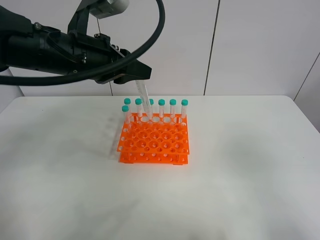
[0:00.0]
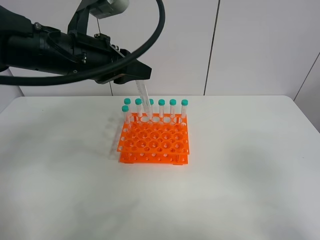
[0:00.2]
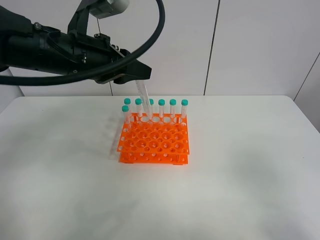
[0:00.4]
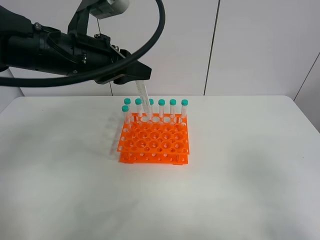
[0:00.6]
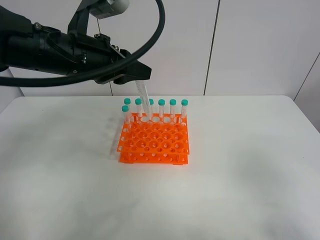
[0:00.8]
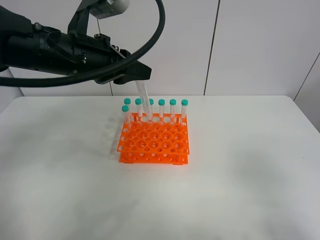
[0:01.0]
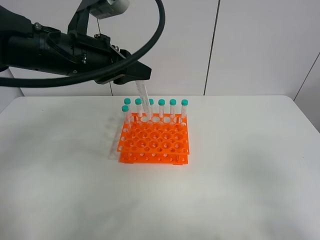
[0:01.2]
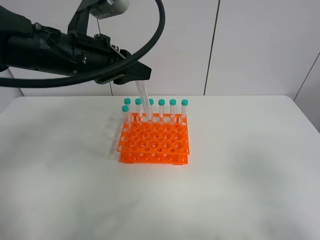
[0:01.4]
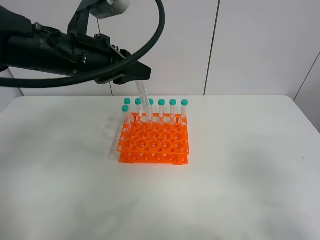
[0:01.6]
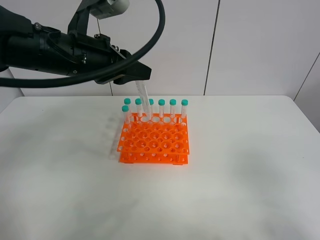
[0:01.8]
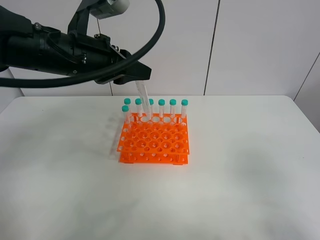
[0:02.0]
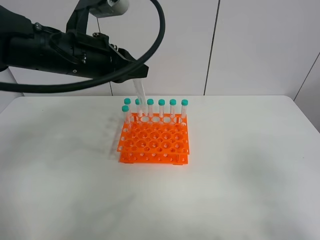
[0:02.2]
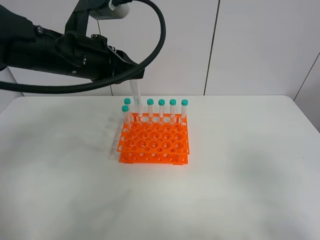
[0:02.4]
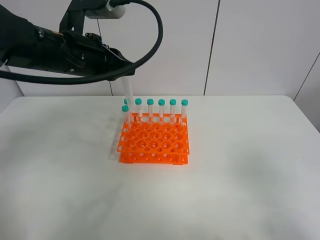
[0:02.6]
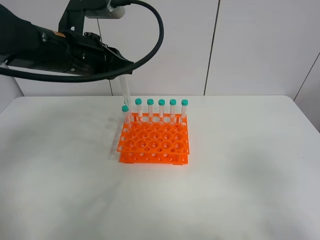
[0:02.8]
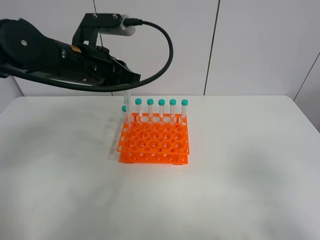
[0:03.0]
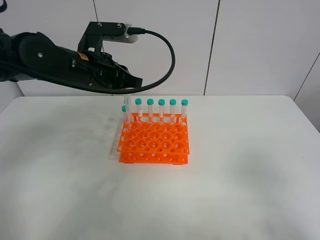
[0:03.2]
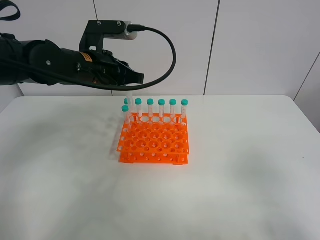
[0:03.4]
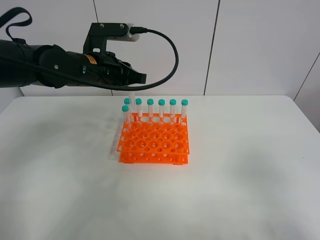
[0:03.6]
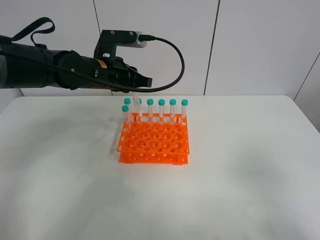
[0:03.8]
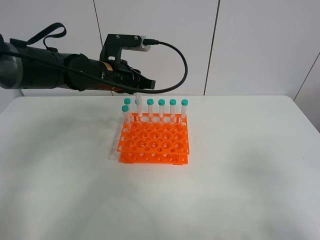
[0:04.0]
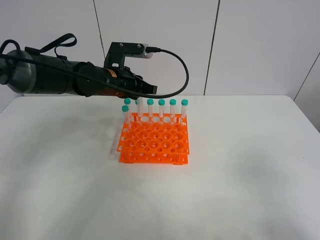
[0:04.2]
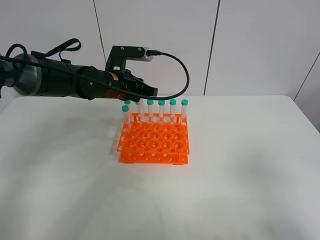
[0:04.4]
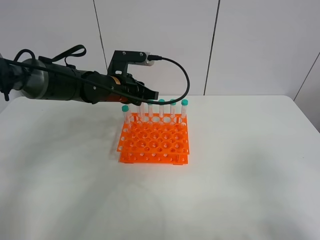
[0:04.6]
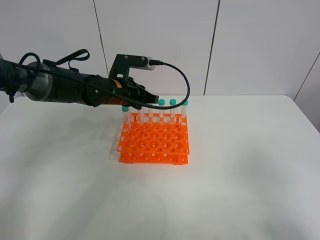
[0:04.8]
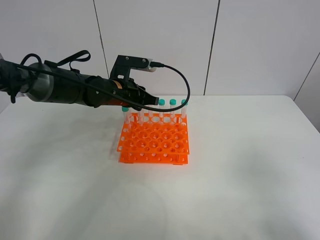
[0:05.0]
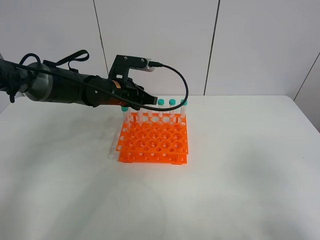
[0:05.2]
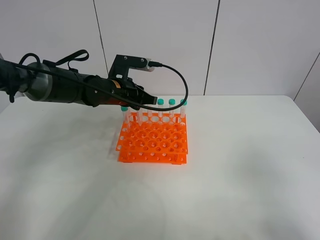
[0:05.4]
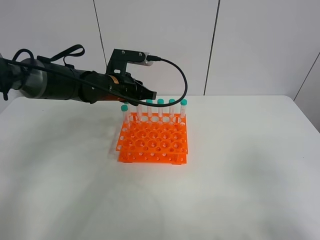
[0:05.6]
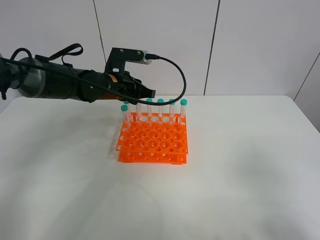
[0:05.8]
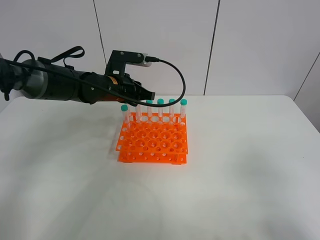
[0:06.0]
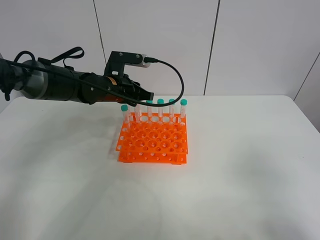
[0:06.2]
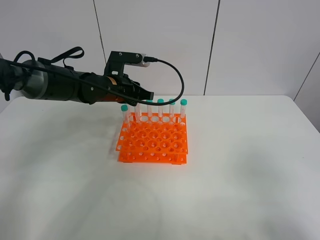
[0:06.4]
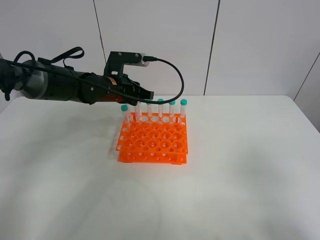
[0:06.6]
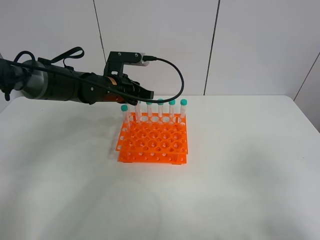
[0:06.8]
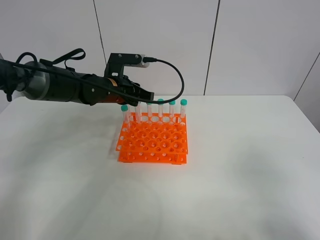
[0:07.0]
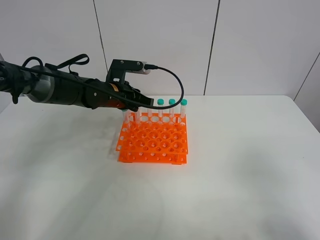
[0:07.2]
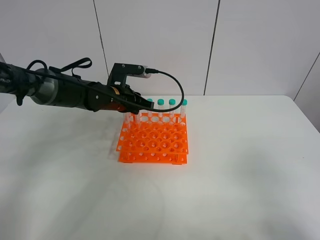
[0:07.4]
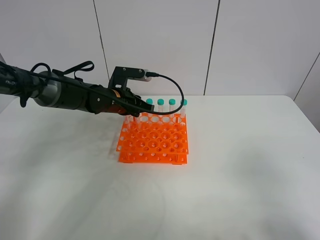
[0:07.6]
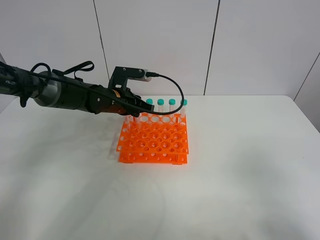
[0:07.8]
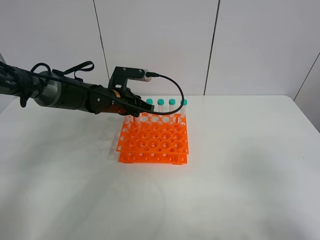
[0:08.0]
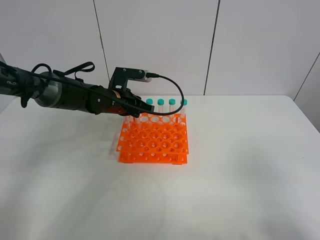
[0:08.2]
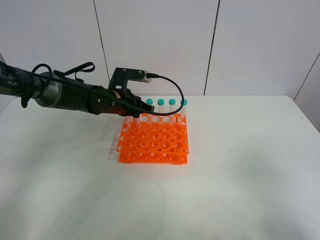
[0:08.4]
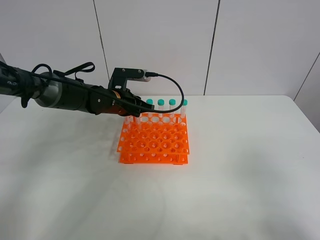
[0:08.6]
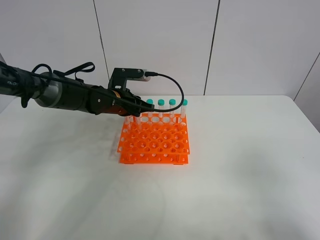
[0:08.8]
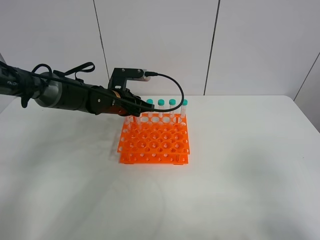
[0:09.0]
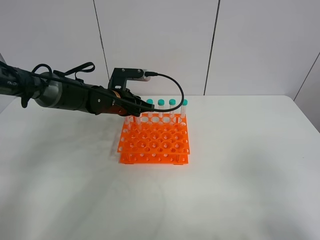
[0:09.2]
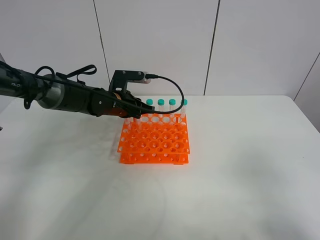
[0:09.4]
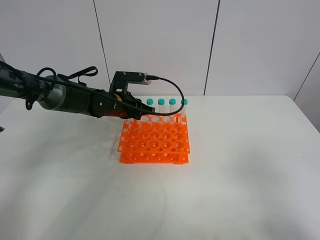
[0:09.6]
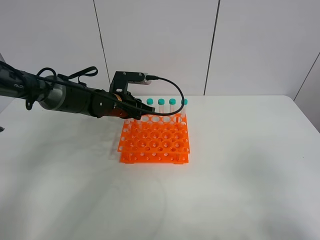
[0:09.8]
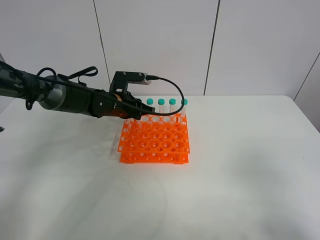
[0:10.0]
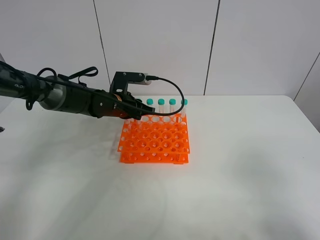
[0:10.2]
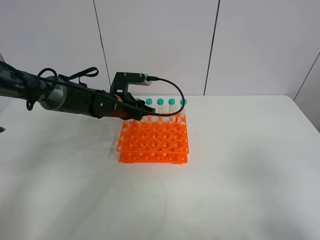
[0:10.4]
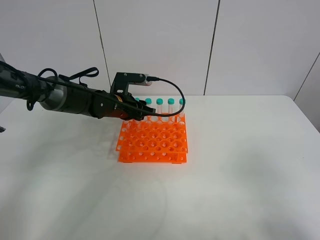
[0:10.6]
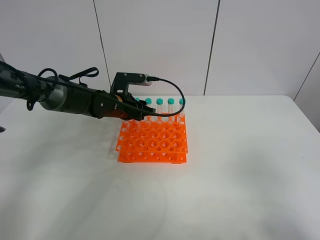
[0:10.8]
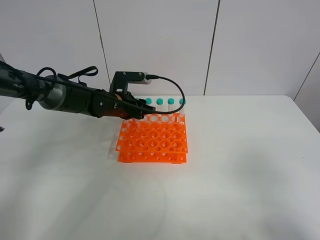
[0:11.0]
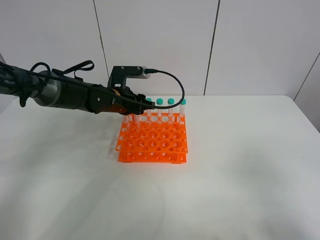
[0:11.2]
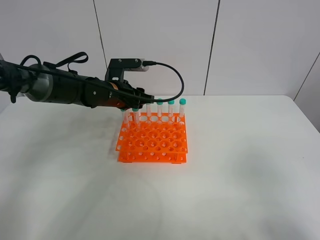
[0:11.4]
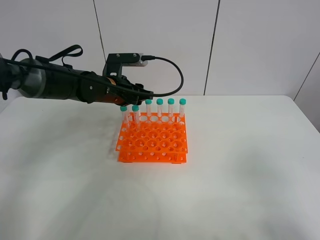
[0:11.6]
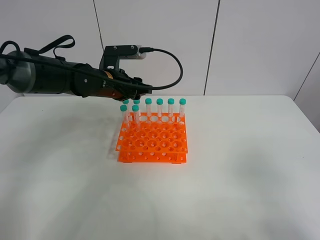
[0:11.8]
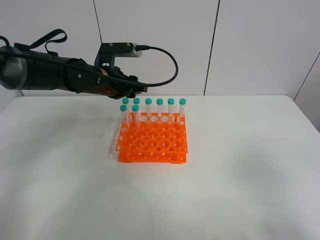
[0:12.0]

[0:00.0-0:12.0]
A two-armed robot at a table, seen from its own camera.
Task of the whole recording: Put the test tube on the table back onto the test tube rack.
Step, 0:00.0 to 0:10.6: Place the test tube on the test tube rack with the left gripper.
0:01.6 to 0:03.0: There are only small adjustments of the grippers.
0:03.0 to 0:04.4: The left gripper shifts approximately 10 cm downward and forward.
0:04.4 to 0:07.6: The grippers move only a little.
0:07.6 to 0:09.0: The two grippers keep their place.
0:09.0 to 0:10.4: The left gripper opens its fingers.
0:10.4 to 0:12.0: The left gripper heads upward, covering some 10 cm.

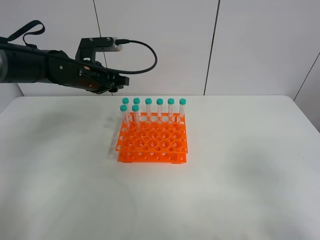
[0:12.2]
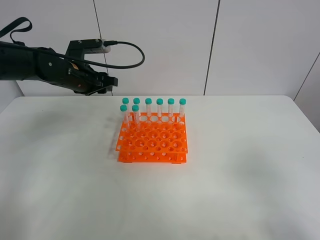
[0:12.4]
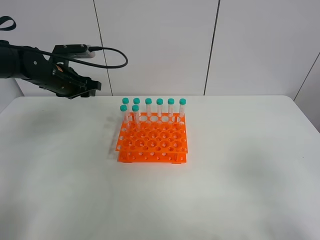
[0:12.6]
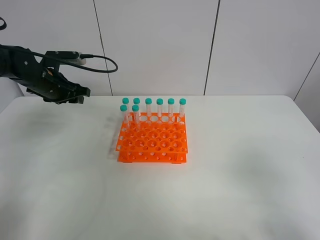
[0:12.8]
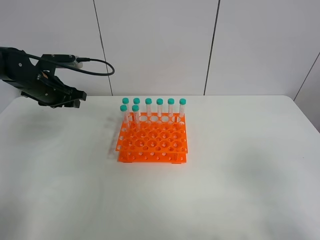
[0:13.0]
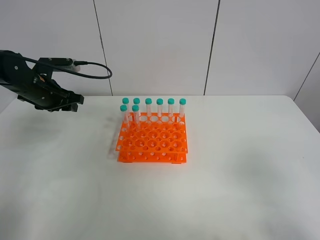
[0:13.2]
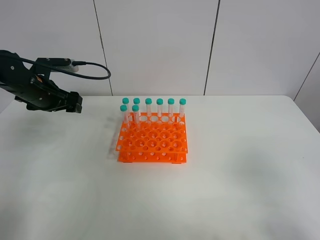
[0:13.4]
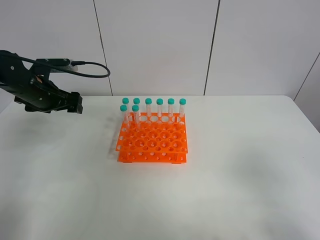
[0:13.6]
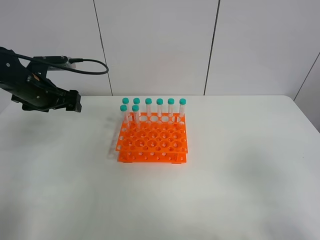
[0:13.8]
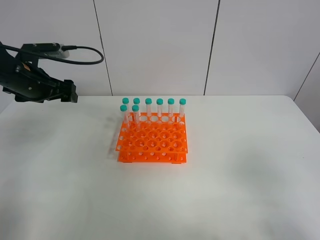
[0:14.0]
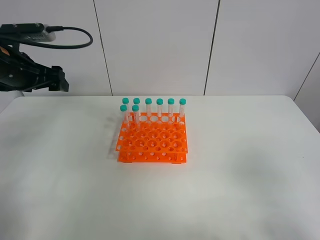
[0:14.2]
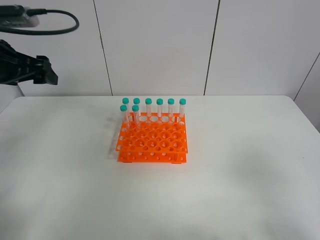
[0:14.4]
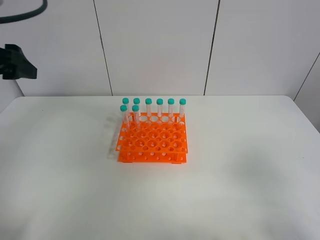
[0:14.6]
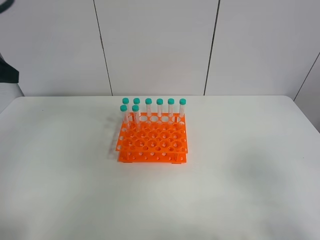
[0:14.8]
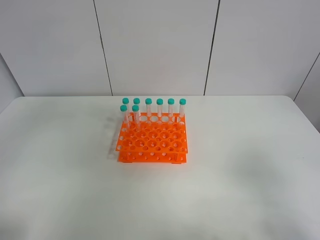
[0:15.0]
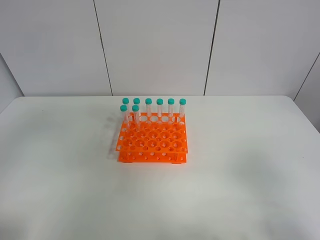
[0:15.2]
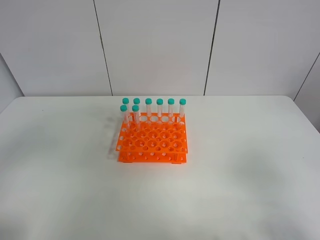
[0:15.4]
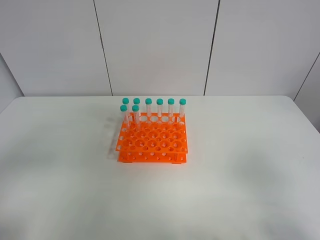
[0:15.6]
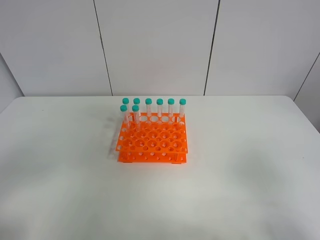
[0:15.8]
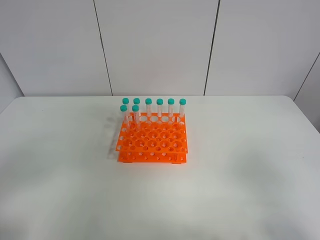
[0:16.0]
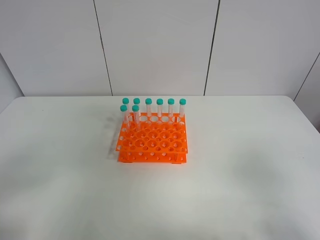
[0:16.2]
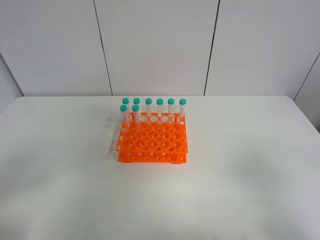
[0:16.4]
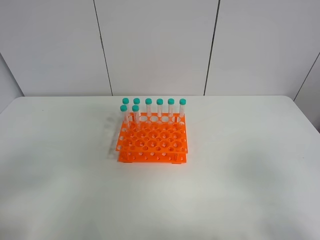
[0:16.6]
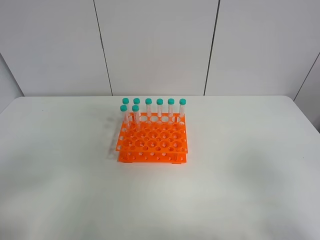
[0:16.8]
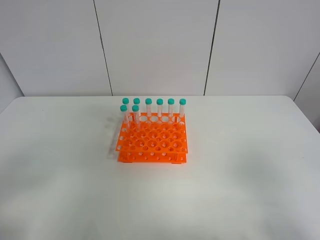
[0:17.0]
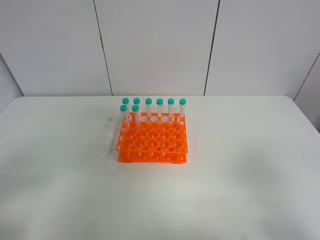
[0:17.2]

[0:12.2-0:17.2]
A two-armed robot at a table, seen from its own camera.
Task of the whole recording: Put the test tube on the table back onto the test tube rack.
0:12.2 to 0:13.8: The left gripper moves to the left, some 10 cm, and opens its fingers.
0:13.8 to 0:15.6: The left gripper travels backward by about 35 cm.
